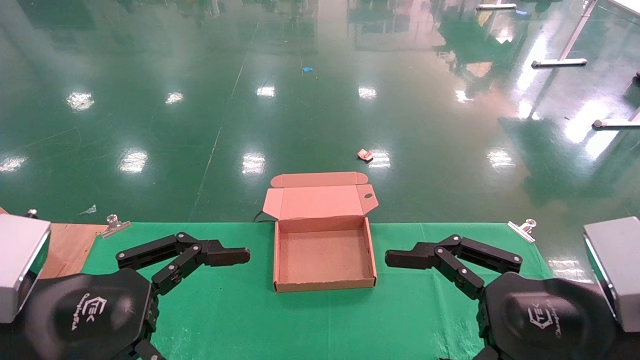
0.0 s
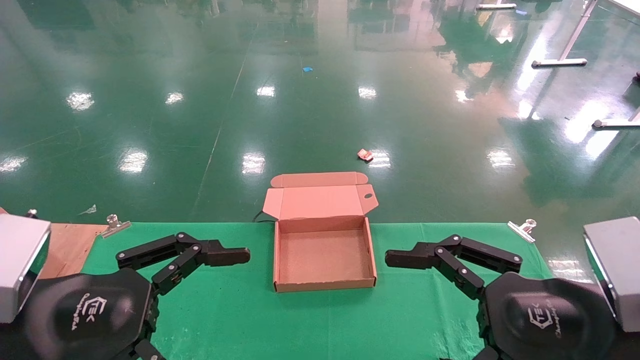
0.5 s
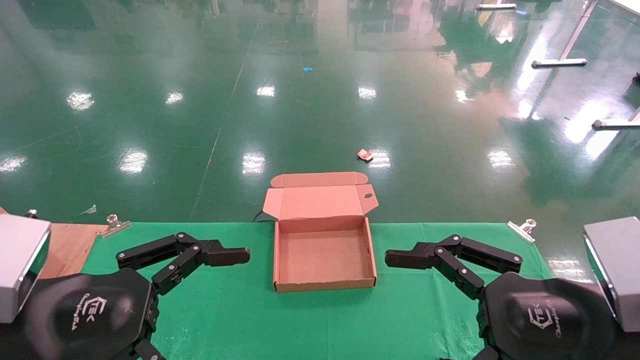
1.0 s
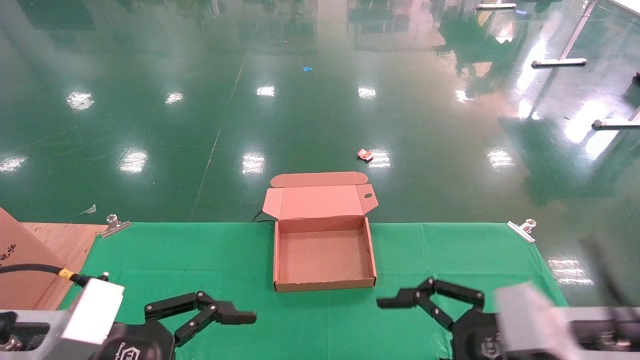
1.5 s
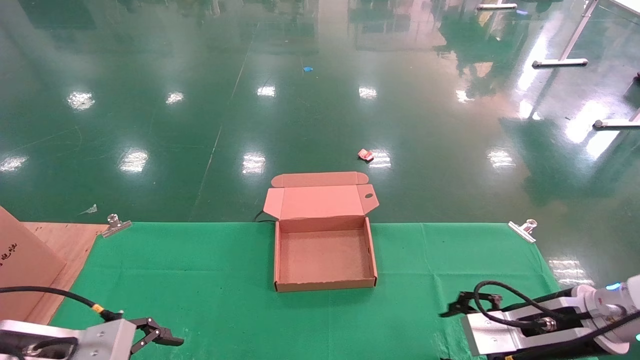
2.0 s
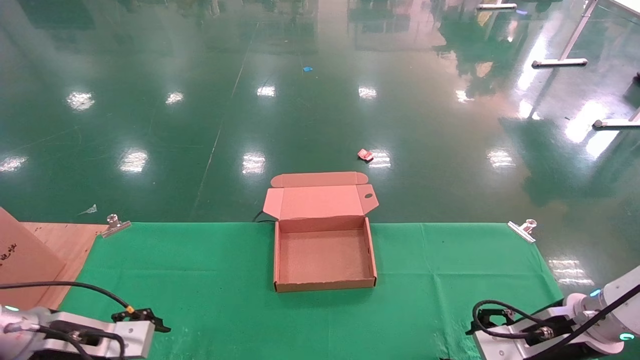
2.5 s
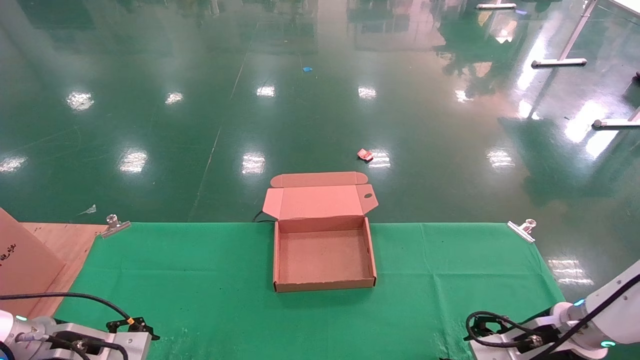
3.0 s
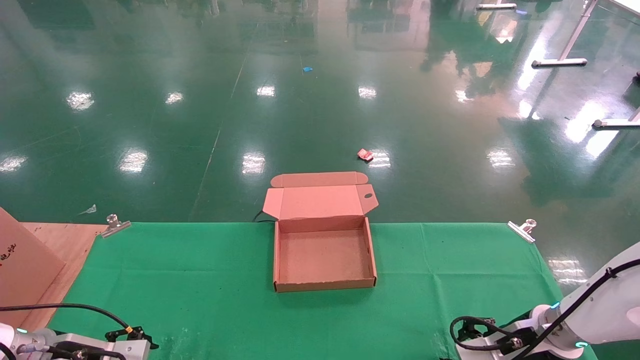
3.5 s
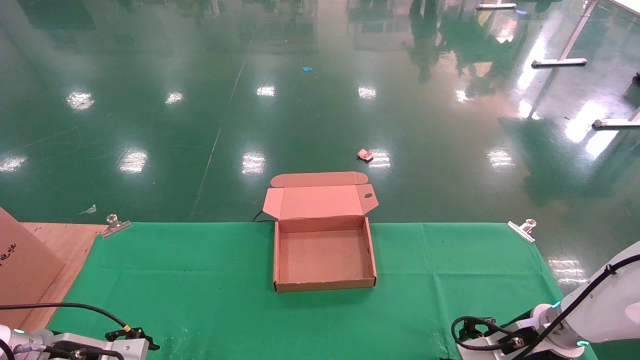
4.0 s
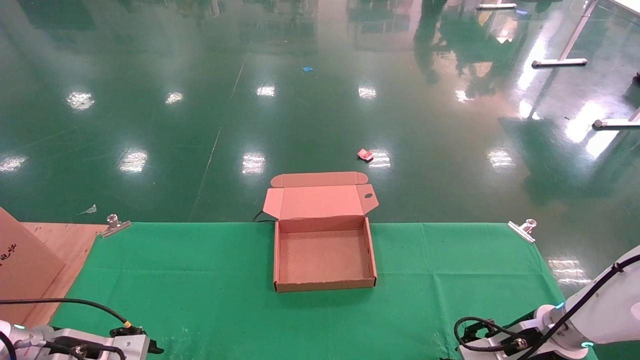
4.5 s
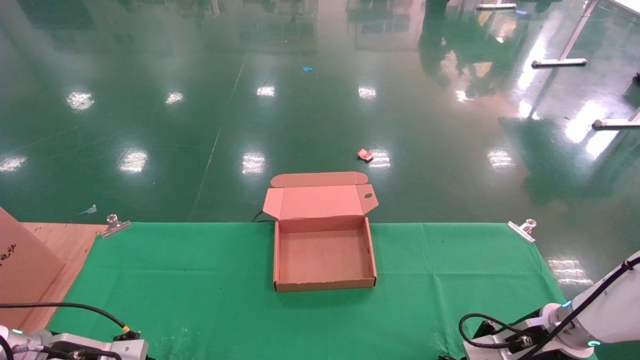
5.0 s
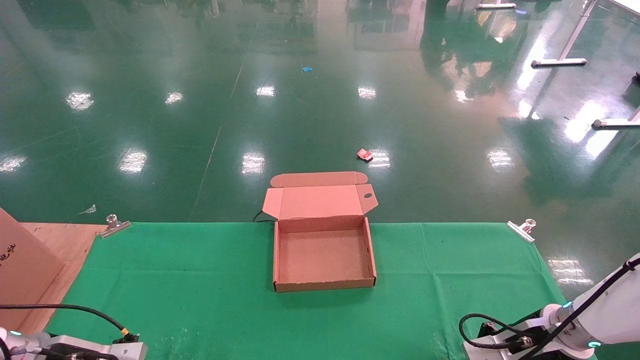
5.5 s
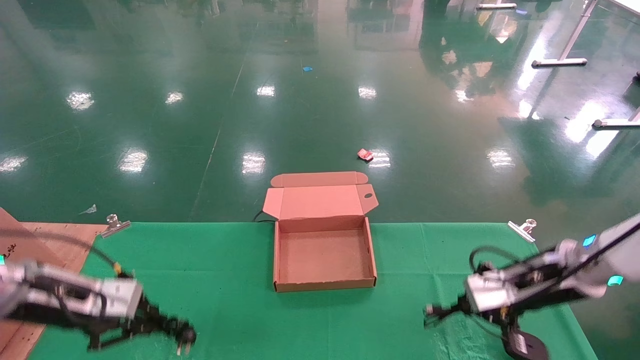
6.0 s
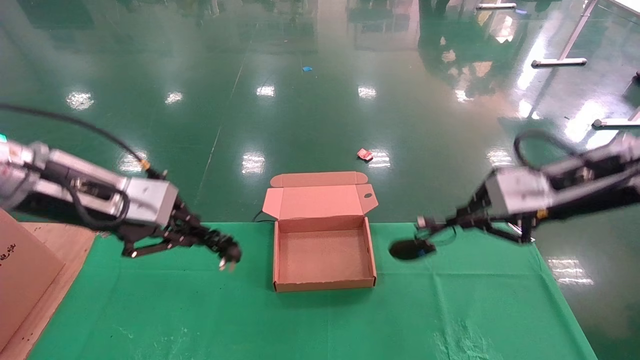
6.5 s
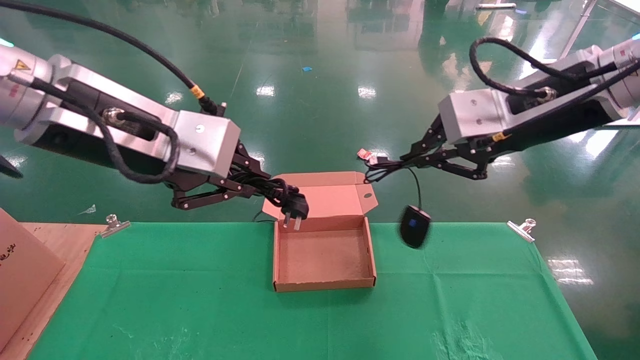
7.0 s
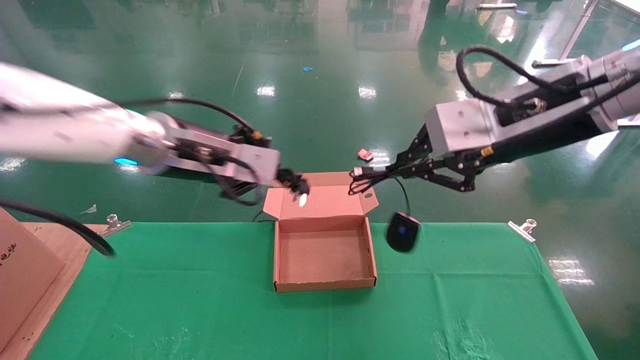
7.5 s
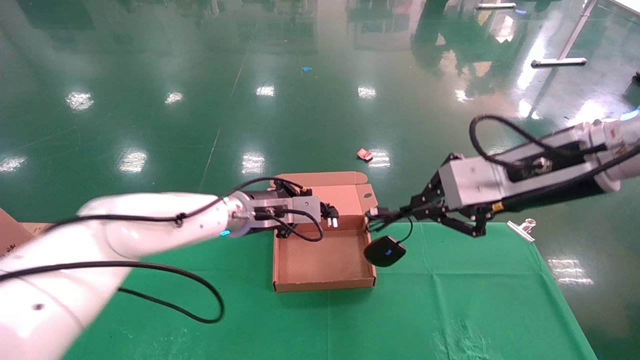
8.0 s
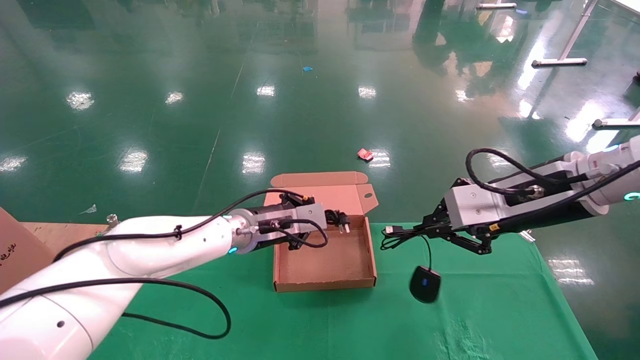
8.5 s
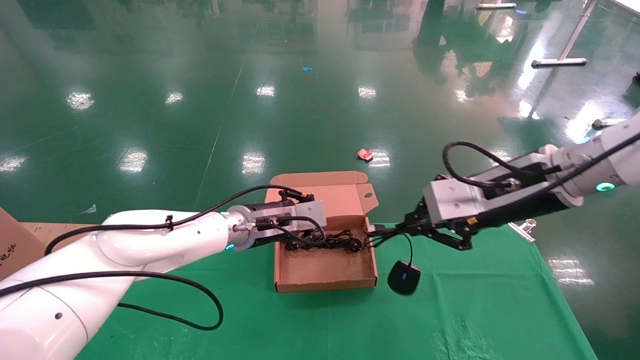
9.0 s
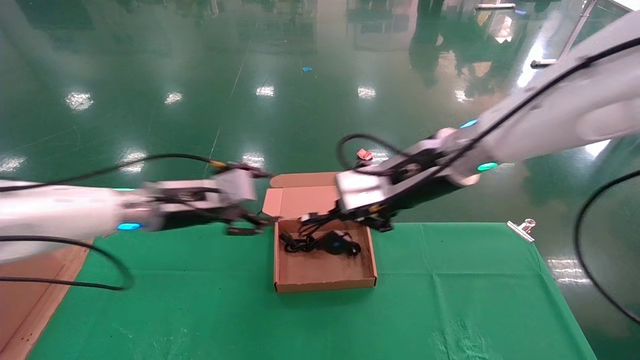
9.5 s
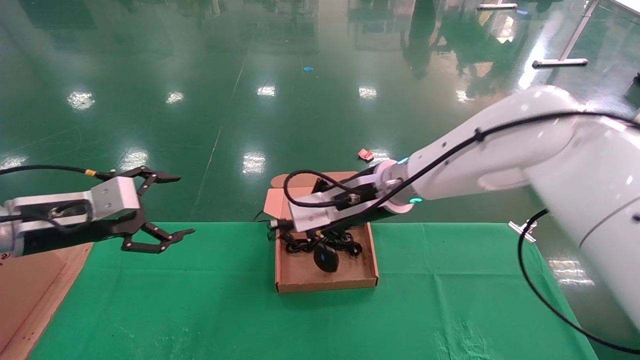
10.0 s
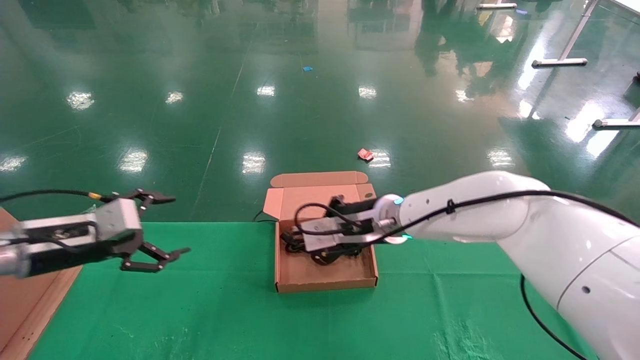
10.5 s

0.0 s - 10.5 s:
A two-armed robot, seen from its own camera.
Step, 1.5 s - 6.0 s: Grab and lift both the mouse and power cord from the accessory packaging area at the same time.
0.0 s - 2.0 s: The left gripper travels downward, forward and to the left by roughly 15 cm; the right gripper moves forward and downward, about 15 cm.
2.0 s - 4.0 s: The right gripper moves downward and forward, roughly 10 cm, while the left gripper goes about 15 cm downward, forward and to the left.
4.0 s - 6.5 s: The grippers both shift upward by approximately 25 cm. The left gripper closes up, while the right gripper closes its fingers.
6.5 s - 8.5 s: The left gripper is displaced to the right, forward and downward by about 30 cm. The right gripper travels upward and back again, approximately 10 cm each way.
8.5 s - 10.5 s: The left gripper shifts approximately 25 cm to the left, and opens its fingers. The right gripper moves to the left, forward and downward, about 25 cm.

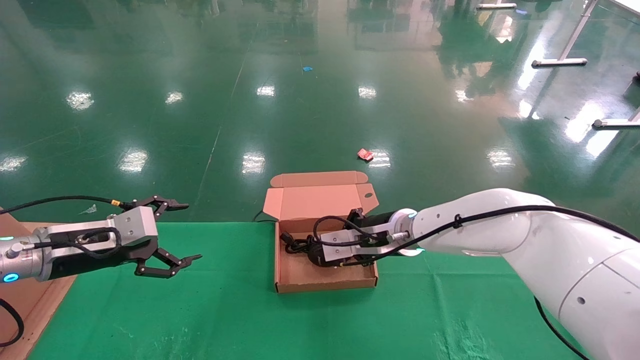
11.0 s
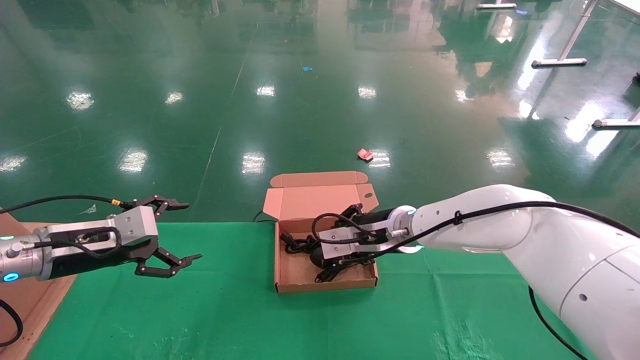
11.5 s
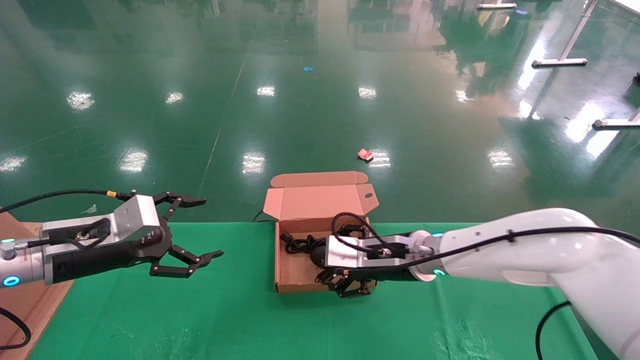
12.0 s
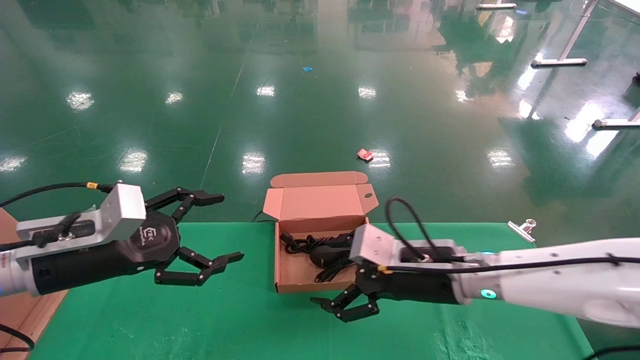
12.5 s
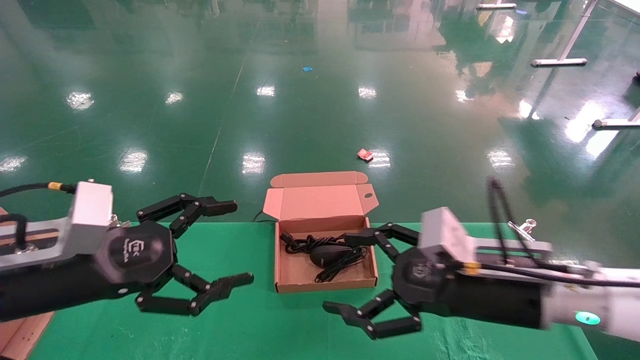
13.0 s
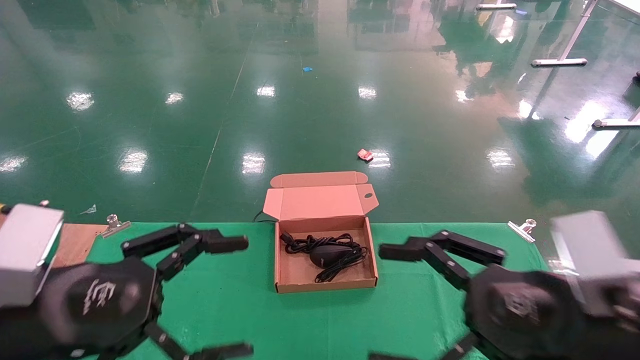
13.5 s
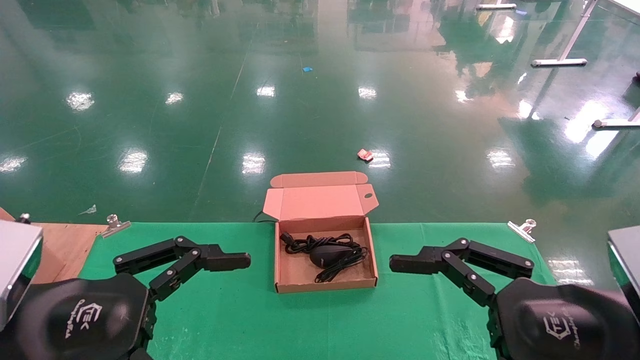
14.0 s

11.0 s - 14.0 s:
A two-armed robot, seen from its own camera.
11.0 s - 12.5 s: Both grippers travel together backward and to the right, approximately 10 cm. The right gripper opens.
12.5 s - 14.0 s: The right gripper heads backward and to the right, covering approximately 20 cm, while the left gripper goes approximately 15 cm backward.

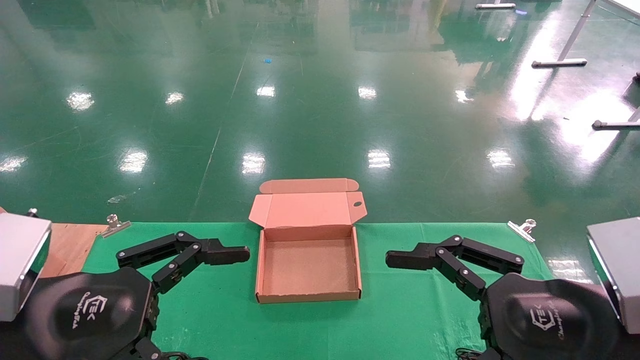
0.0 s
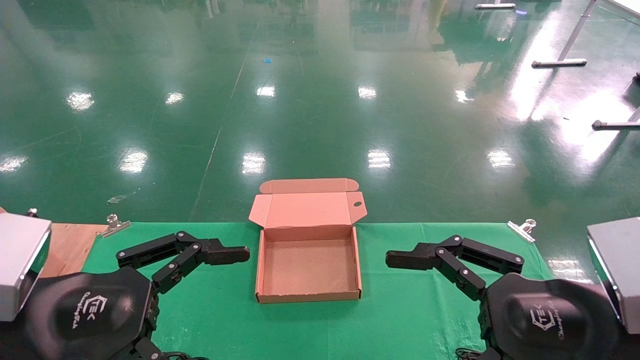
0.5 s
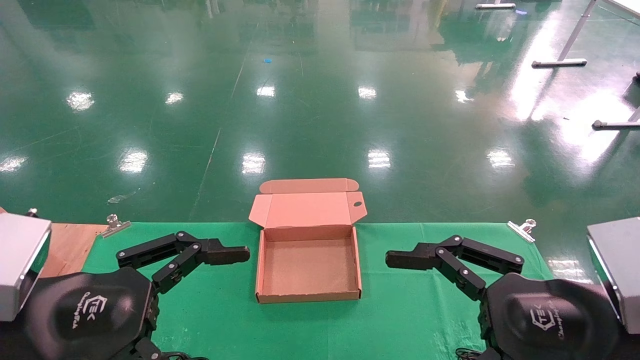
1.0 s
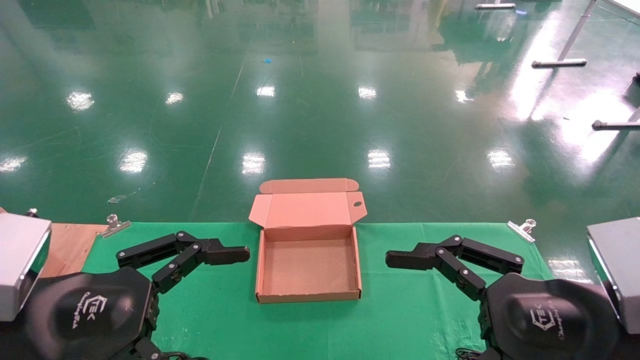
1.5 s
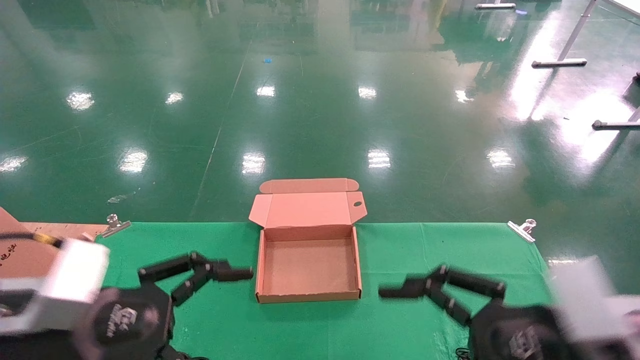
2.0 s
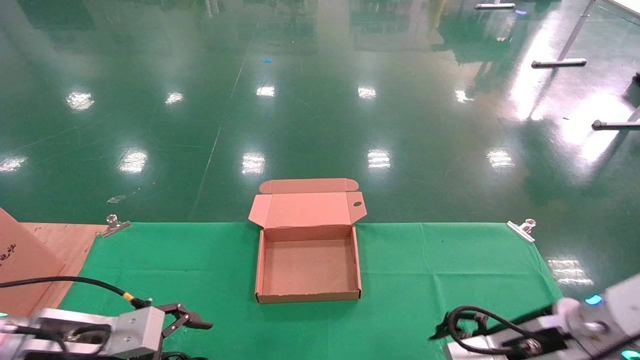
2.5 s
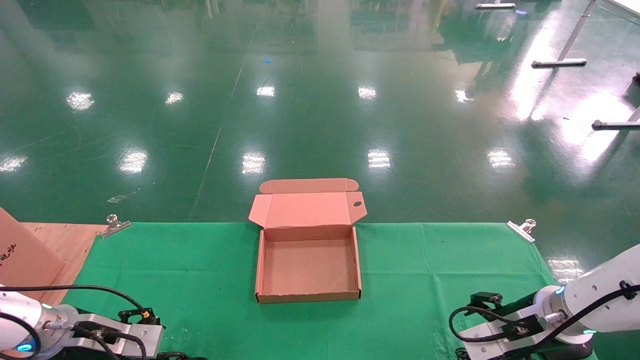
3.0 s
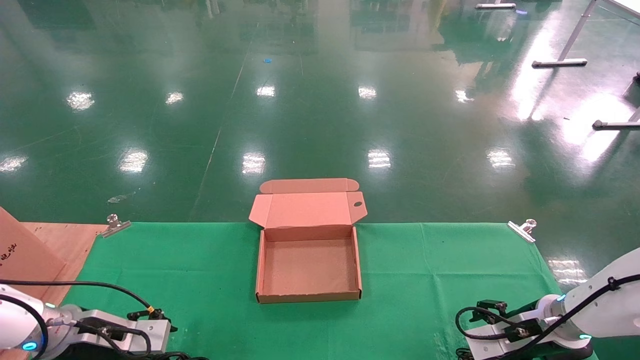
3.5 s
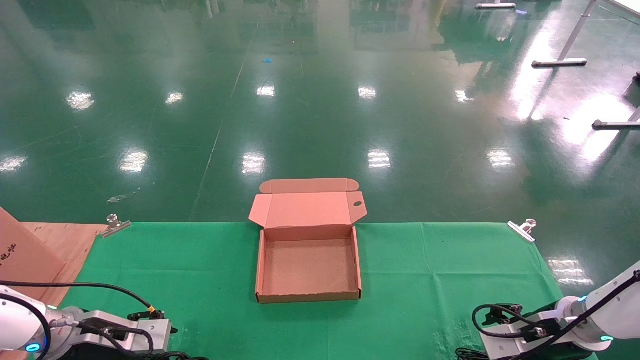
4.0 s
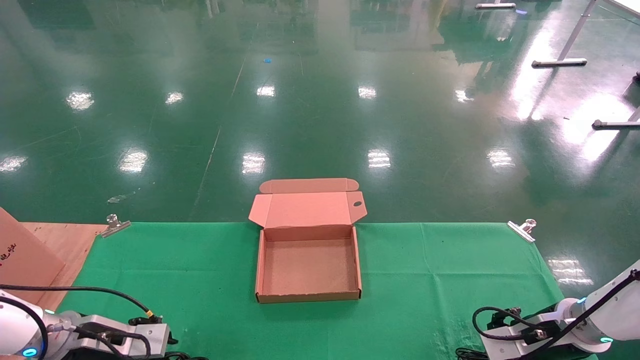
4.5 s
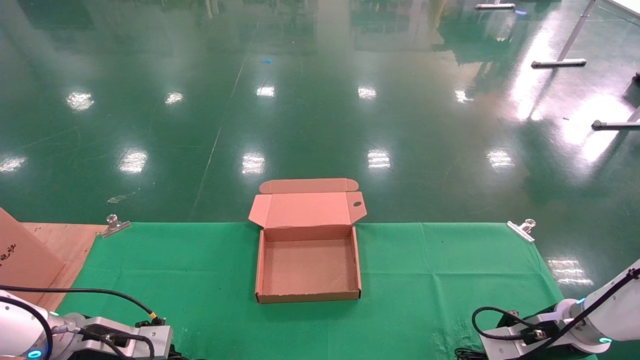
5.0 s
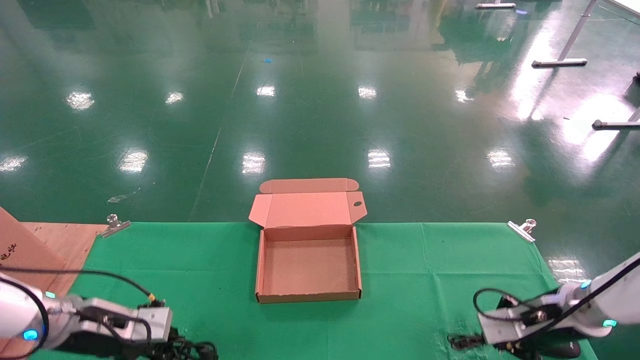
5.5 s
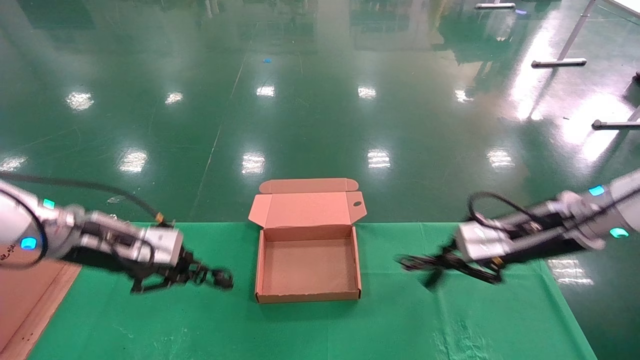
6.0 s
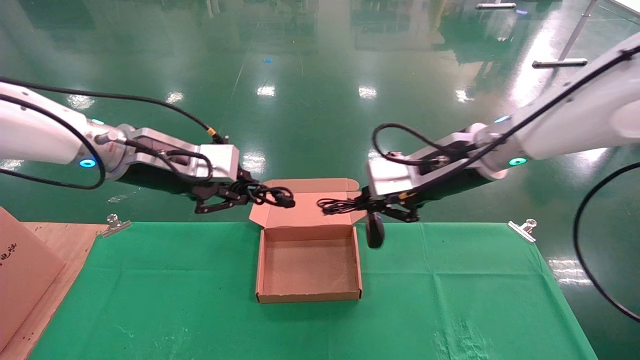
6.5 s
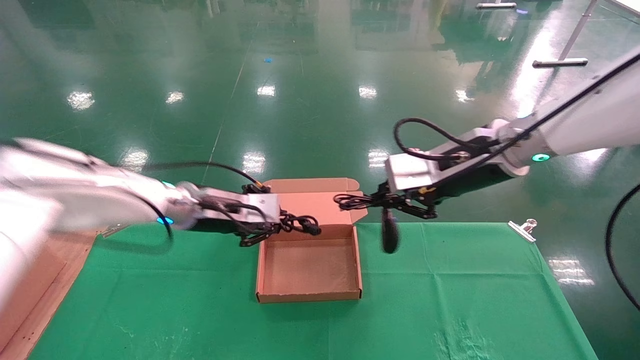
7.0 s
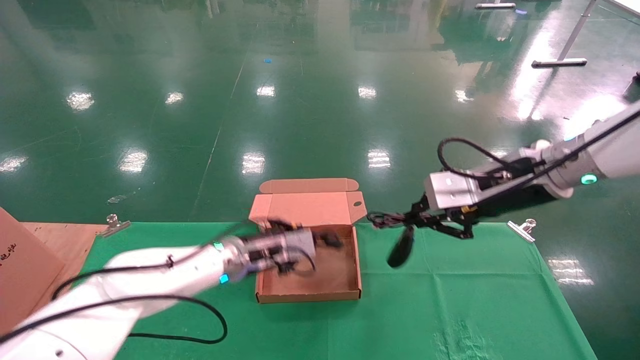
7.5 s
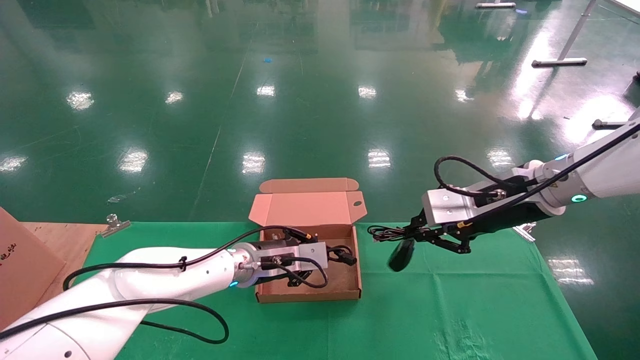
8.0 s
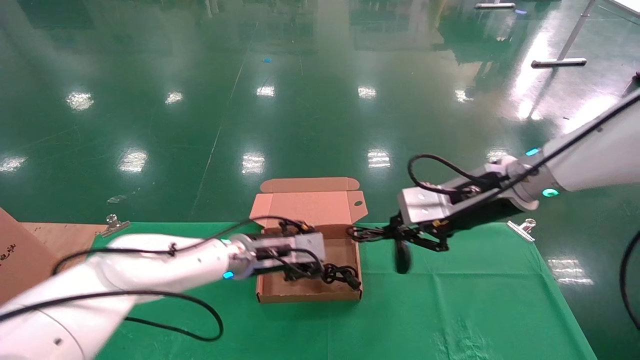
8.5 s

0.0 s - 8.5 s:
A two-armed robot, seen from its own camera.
Step, 2.0 s - 6.0 s: Grab and lift both the mouse and power cord from the accessory packaging area at the same time.
0.0 s - 2.0 s: The left gripper ends up about 5 cm from where it was.
2.0 s - 4.0 s: The right gripper goes some 25 cm forward, downward and to the right, while the left gripper moves forward, downward and to the left, roughly 20 cm.
4.0 s - 6.5 s: The left gripper is displaced upward and to the right by some 30 cm, and closes; the right gripper moves upward and to the left, about 30 cm, and closes.
6.5 s - 8.5 s: The left gripper heads downward, to the right and forward, covering about 20 cm.
